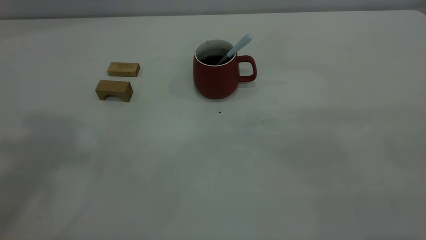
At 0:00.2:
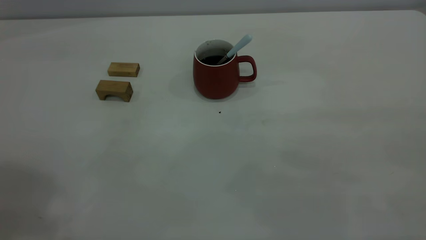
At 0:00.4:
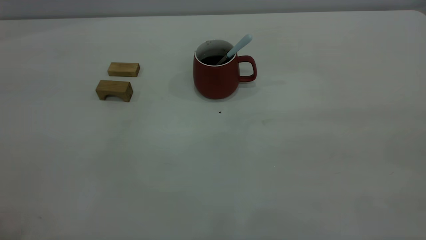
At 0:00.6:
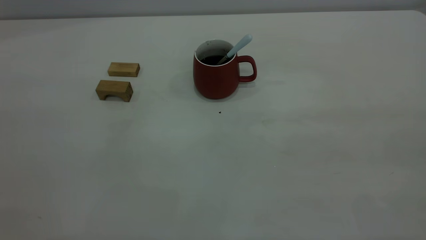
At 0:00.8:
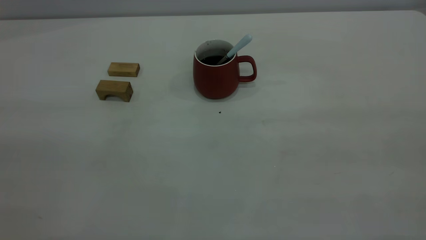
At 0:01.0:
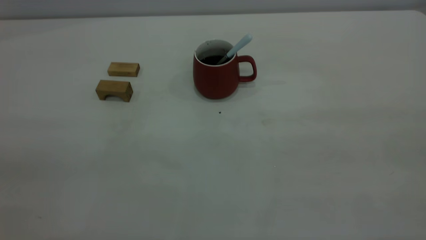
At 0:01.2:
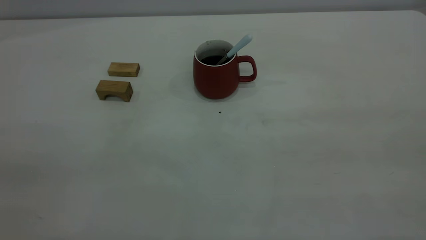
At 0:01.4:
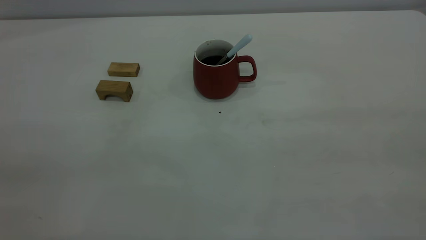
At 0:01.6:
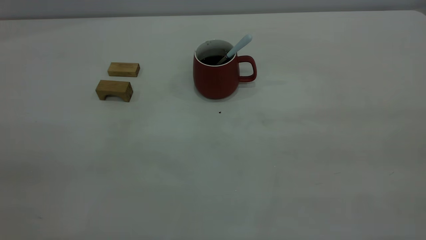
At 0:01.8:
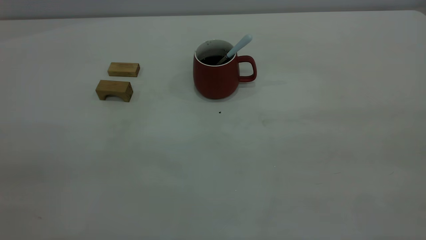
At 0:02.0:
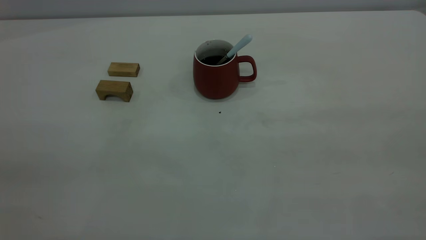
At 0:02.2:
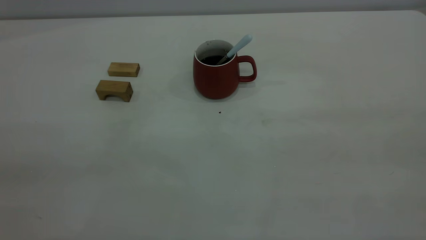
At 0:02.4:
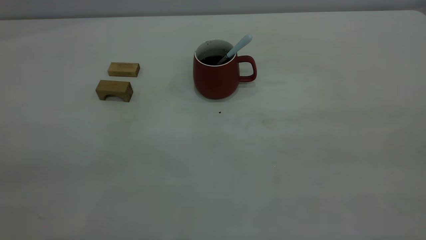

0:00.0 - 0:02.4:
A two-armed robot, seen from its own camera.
0:01.2 - 0:02.4: The two grippers keep their place.
